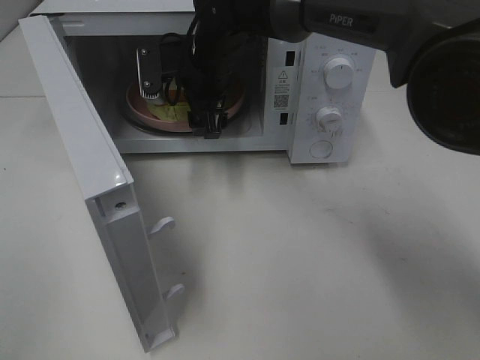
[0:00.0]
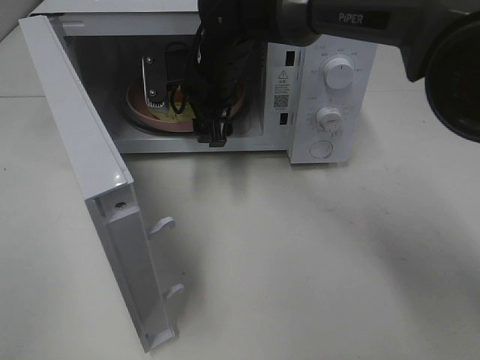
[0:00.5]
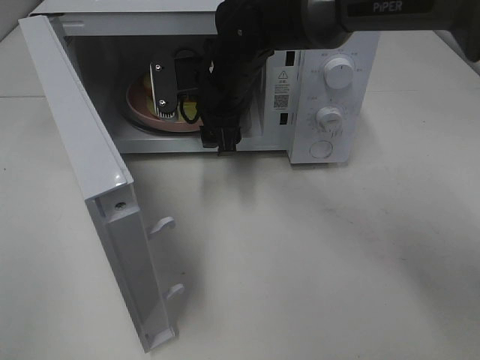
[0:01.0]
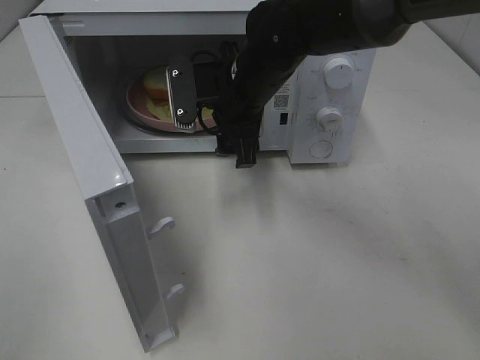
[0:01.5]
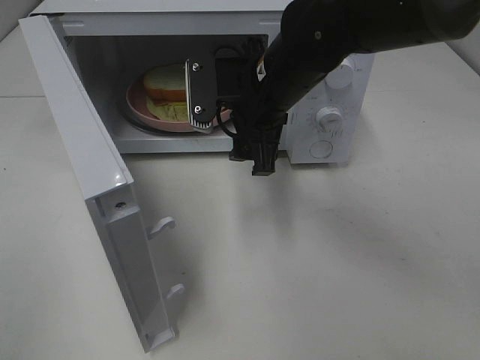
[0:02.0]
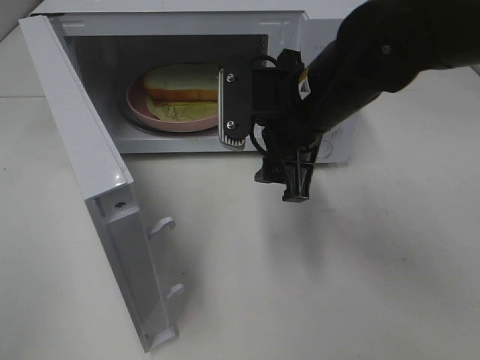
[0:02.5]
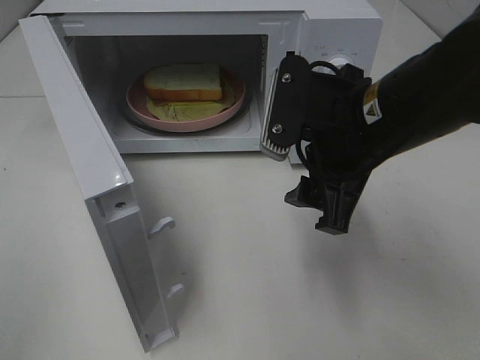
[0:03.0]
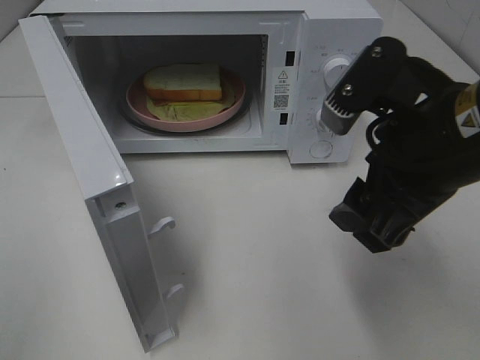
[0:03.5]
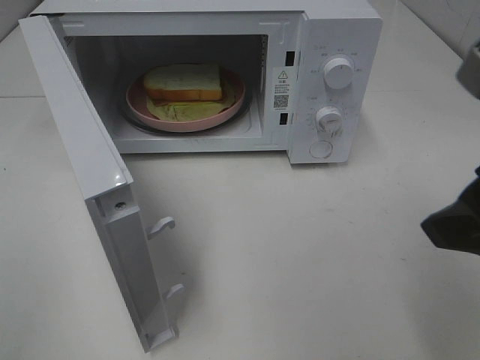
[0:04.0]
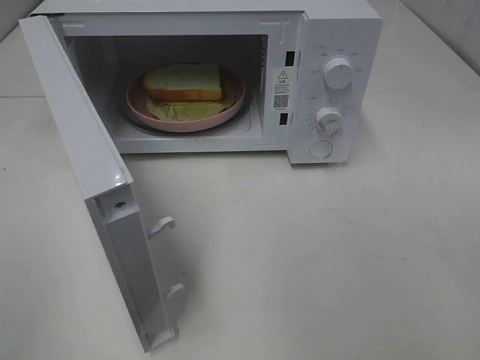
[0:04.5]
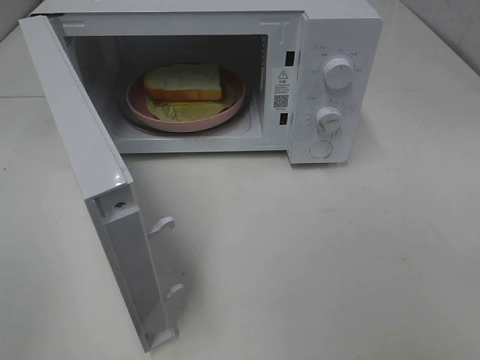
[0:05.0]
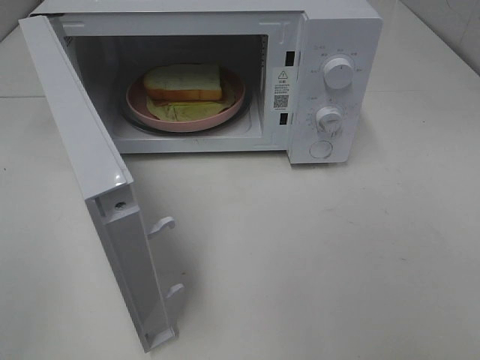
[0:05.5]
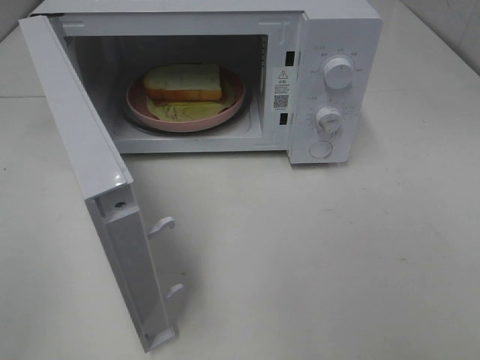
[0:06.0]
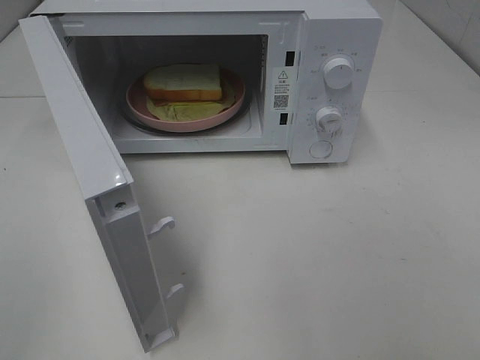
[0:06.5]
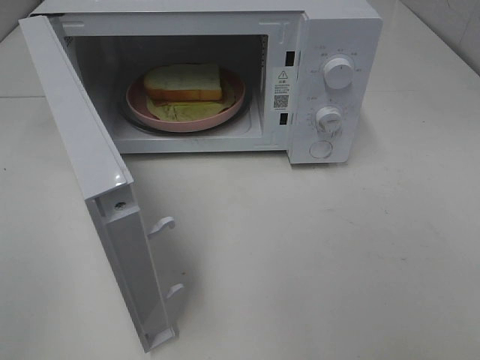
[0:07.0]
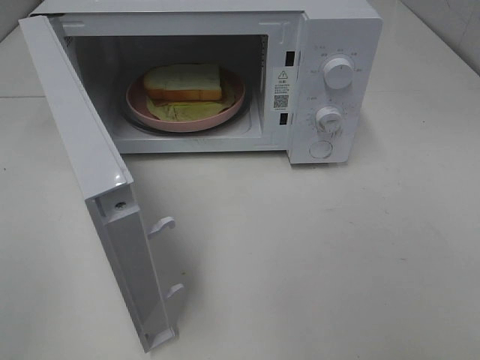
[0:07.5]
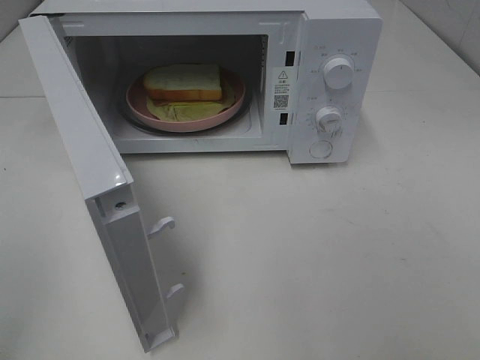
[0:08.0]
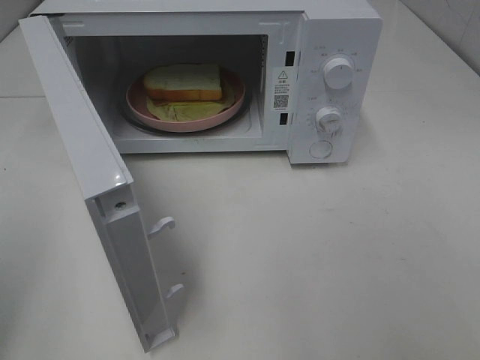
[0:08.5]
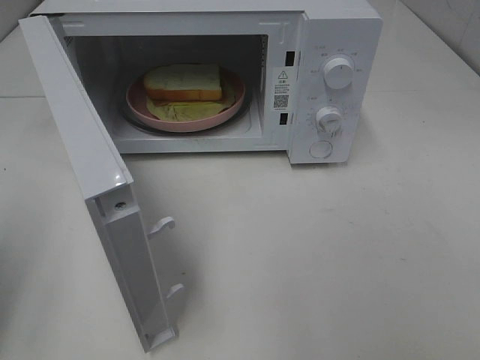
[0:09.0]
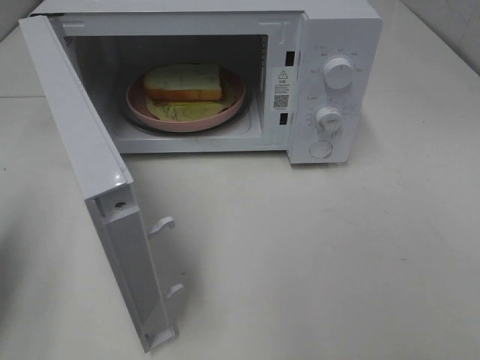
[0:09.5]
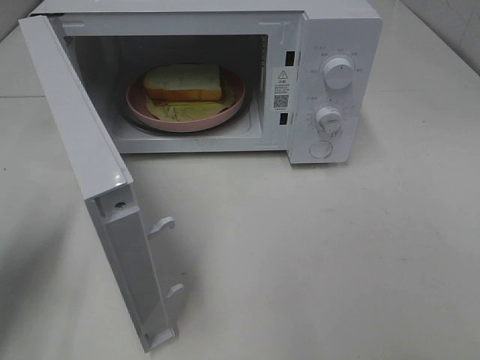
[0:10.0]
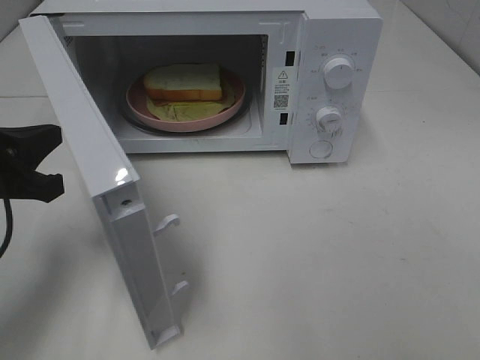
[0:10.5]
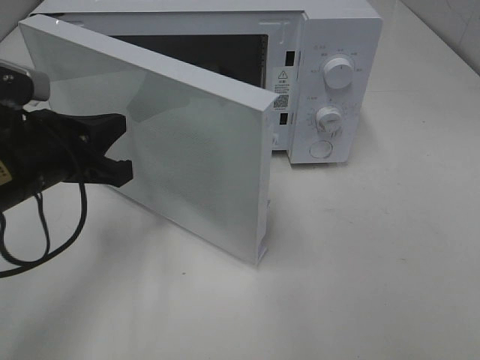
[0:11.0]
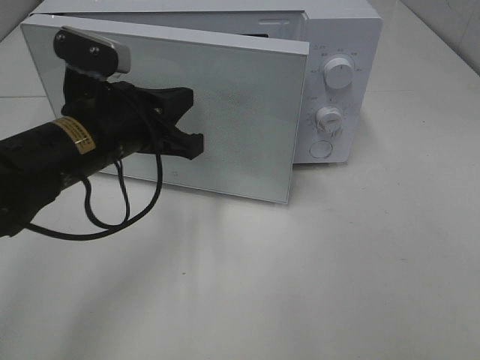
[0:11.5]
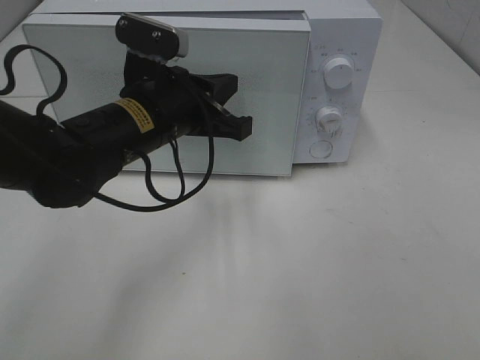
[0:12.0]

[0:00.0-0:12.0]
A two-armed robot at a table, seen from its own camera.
Task of the whole recording: Heat Sandwich.
0:00.0 to 0:02.0: The right gripper goes roughly 15 cm backward and to the right.
0:02.0 to 0:04.0: The right gripper goes roughly 25 cm backward, to the right and upward.
0:04.0 to 0:06.0: The right gripper shifts approximately 15 cm backward and to the right.
0:08.0 to 0:10.0: The left gripper travels forward and downward by some 20 cm, and closes its fingers.
0:10.0 to 0:12.0: The left gripper is displaced to the right and forward by roughly 25 cm.

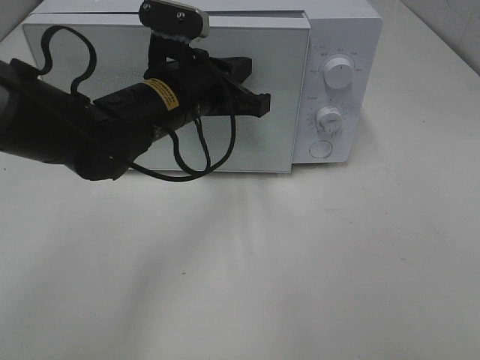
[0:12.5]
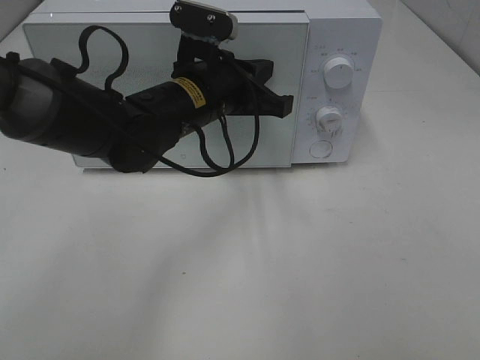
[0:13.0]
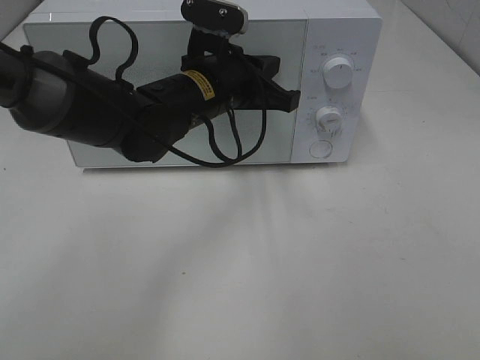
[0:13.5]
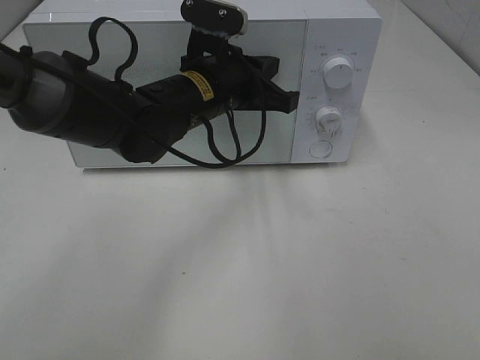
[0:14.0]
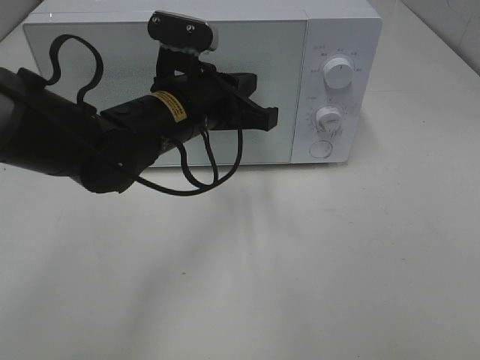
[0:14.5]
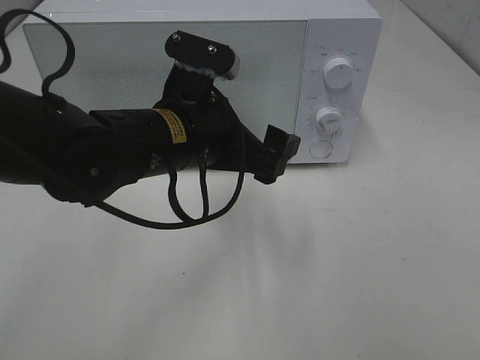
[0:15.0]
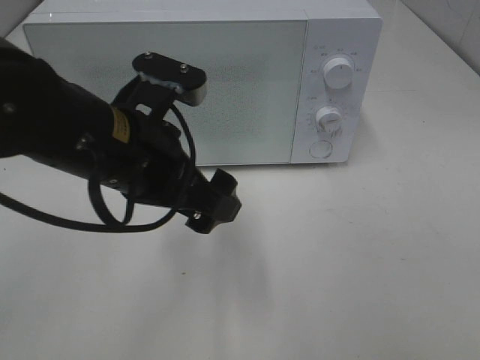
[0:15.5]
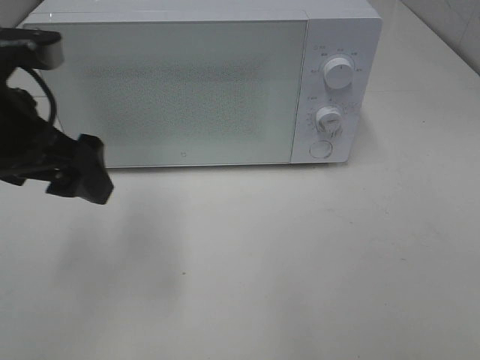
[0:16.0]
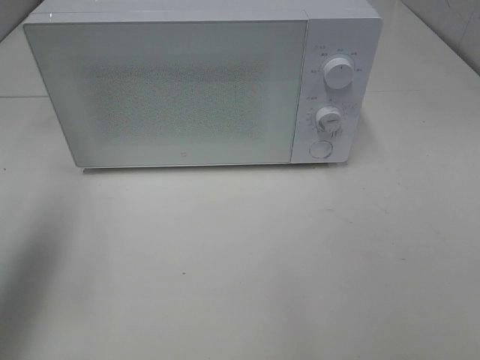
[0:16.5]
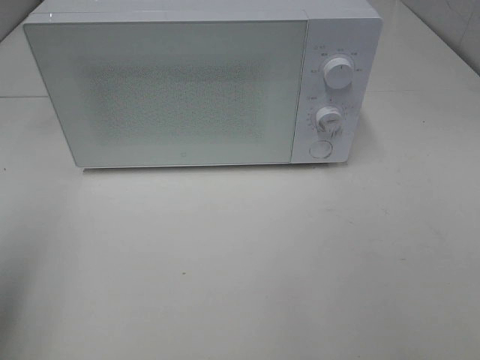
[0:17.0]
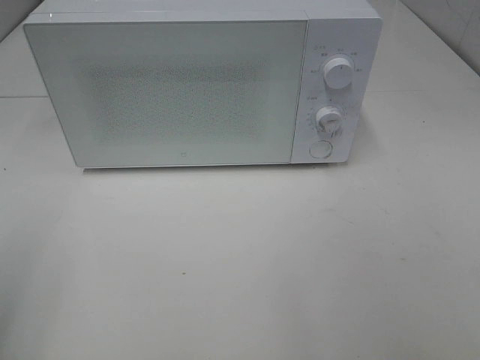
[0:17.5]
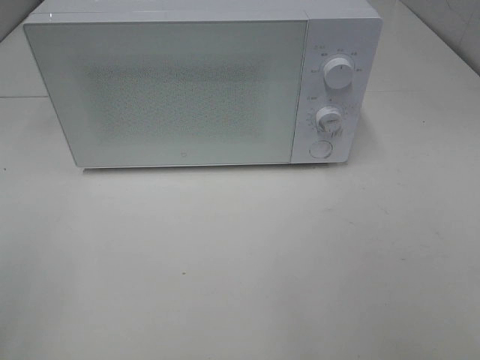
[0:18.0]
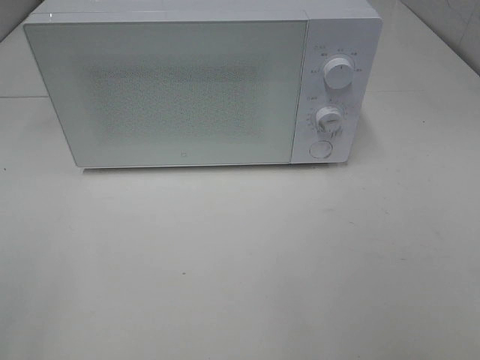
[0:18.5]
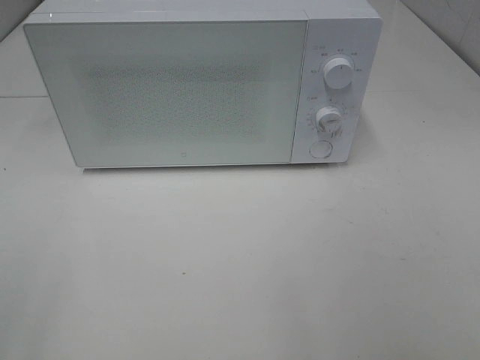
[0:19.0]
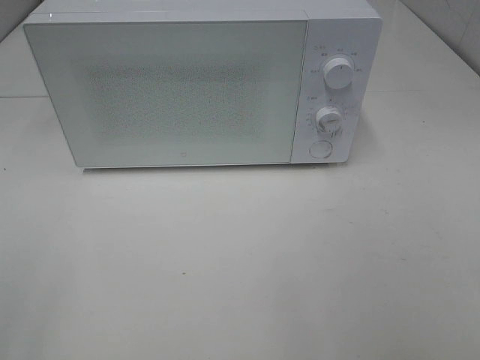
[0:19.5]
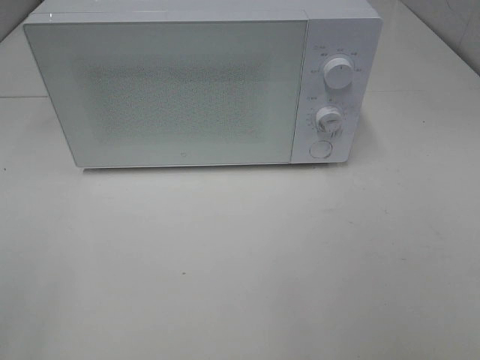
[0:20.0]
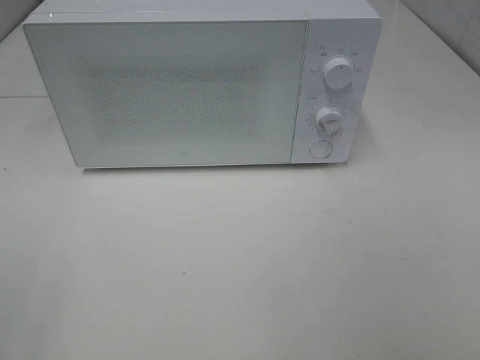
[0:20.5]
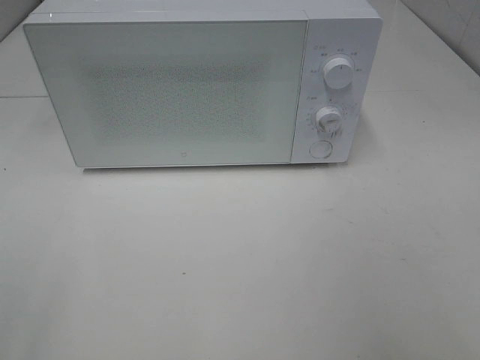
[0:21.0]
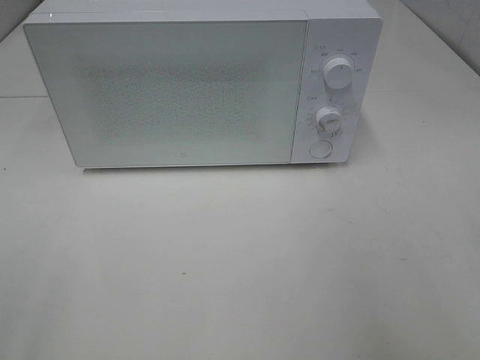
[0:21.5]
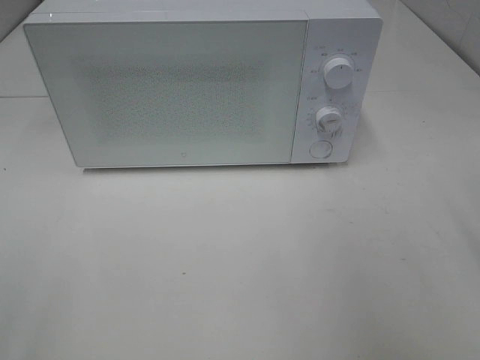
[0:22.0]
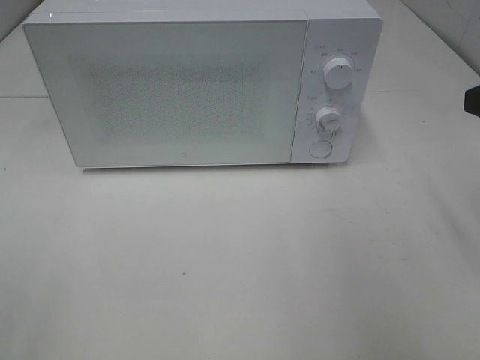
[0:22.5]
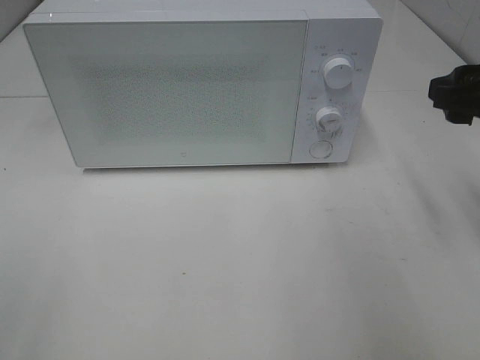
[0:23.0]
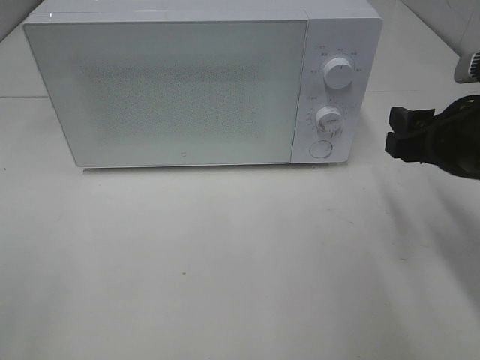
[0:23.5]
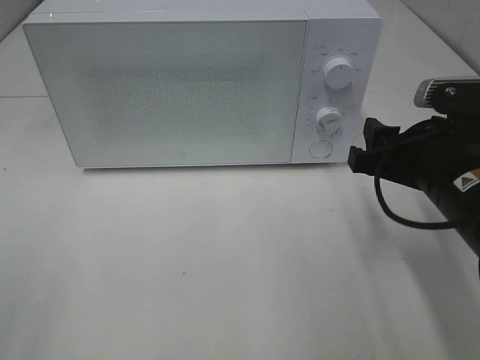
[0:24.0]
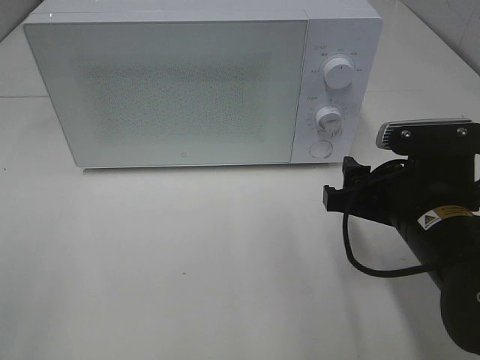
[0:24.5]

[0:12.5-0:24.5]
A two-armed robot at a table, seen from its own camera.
Task of the whole recording: Heat Sandwich.
Step, 0:12.5 to 0:14.5: Left hand: close the microwave door.
0:12.5 to 0:14.5: There are only small adjustments of the grippers.
0:14.5 to 0:16.5: The left gripper moves to the left, upward and backward, approximately 30 cm, and opens.
0:16.5 to 0:18.5: The left gripper moves backward, roughly 20 cm.
0:22.5 to 0:24.5: The right gripper travels downward and to the left by approximately 15 cm.

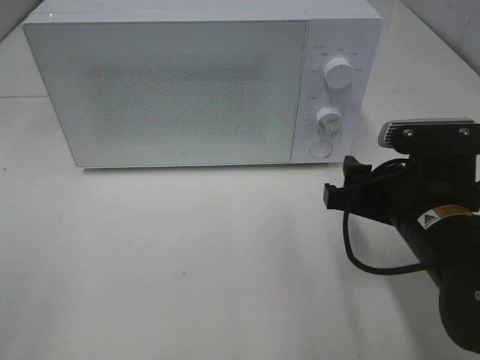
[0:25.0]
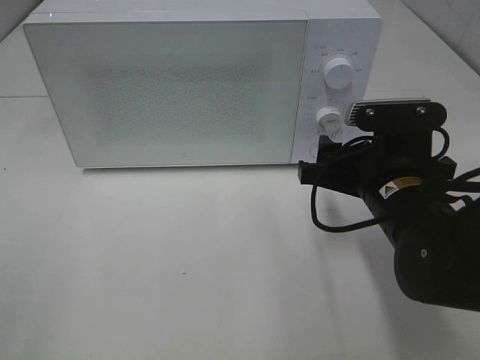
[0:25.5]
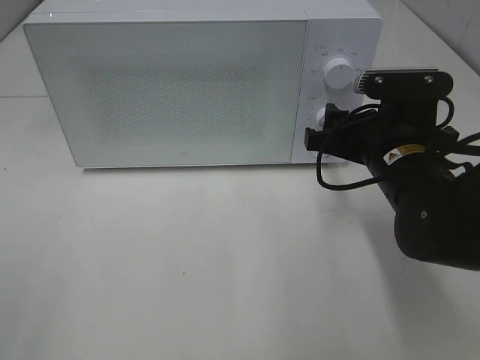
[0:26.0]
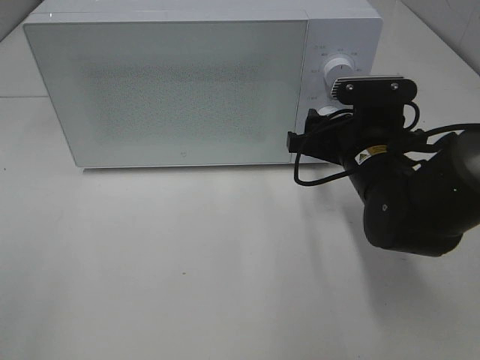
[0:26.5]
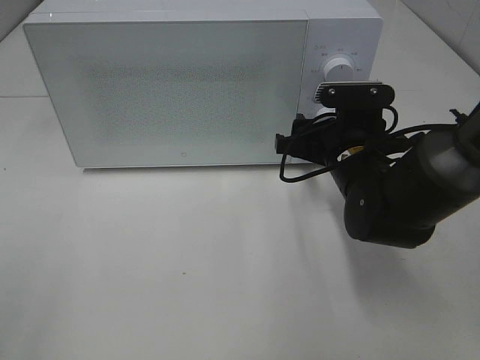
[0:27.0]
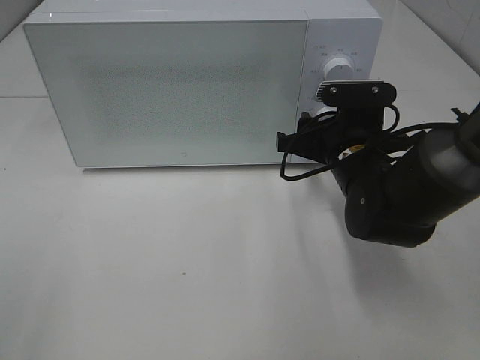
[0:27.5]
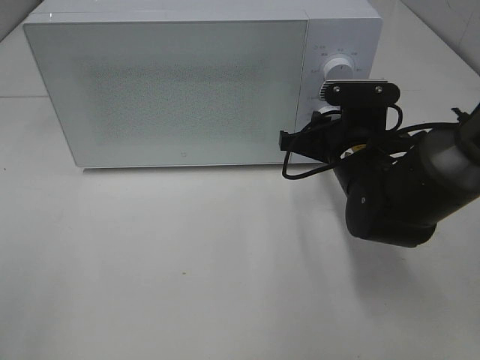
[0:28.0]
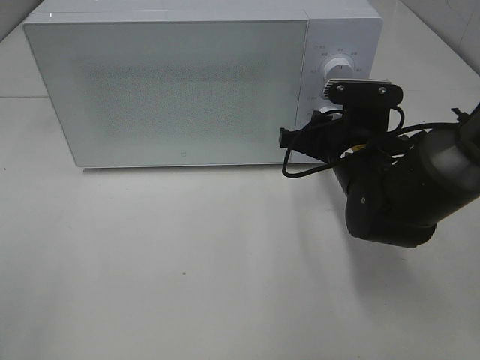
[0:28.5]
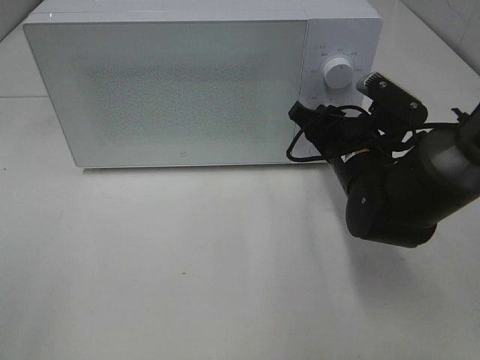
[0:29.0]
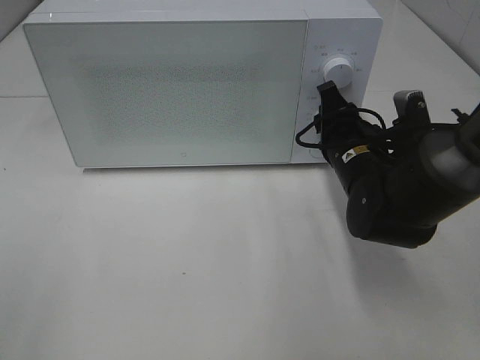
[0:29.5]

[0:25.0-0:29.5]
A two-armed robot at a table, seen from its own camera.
Task of the whole recording: Heat Sandwich.
0:25.0 to 0:27.0: The right gripper moves forward, some 10 cm.
0:27.0 to 0:29.5: The right gripper closes its fingers.
